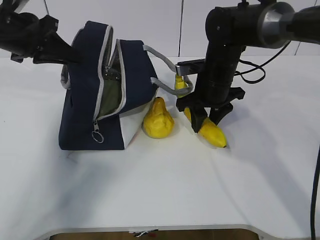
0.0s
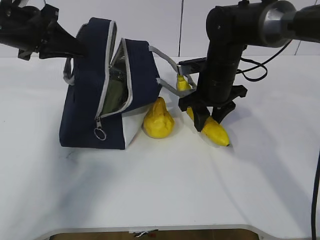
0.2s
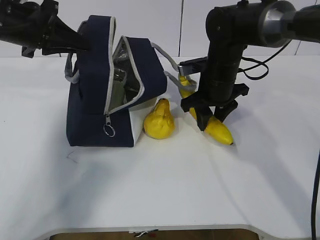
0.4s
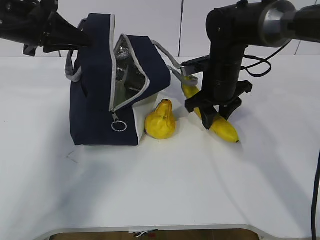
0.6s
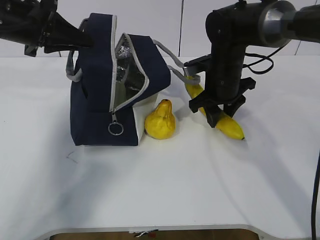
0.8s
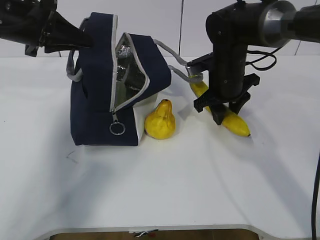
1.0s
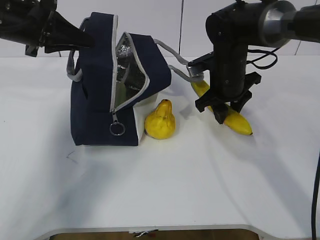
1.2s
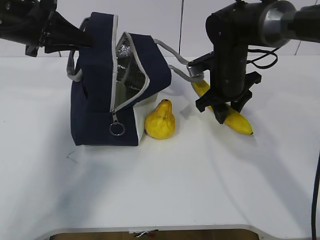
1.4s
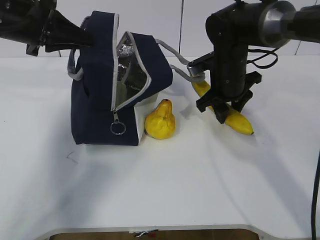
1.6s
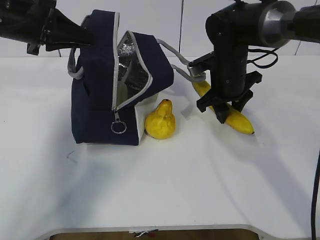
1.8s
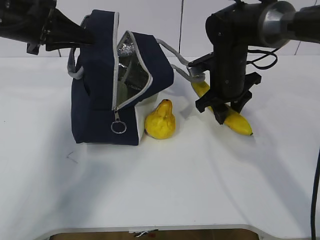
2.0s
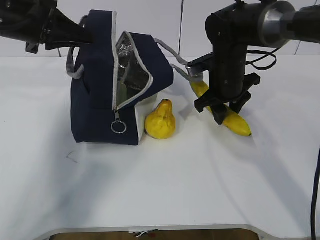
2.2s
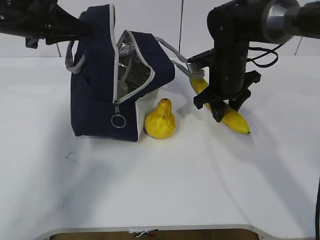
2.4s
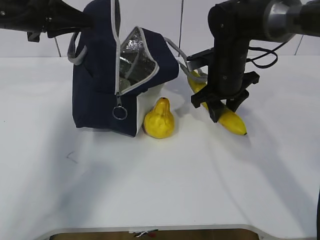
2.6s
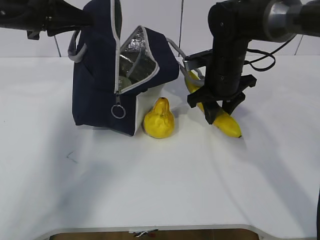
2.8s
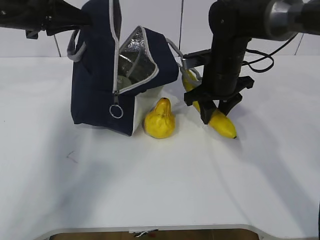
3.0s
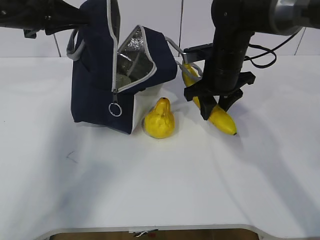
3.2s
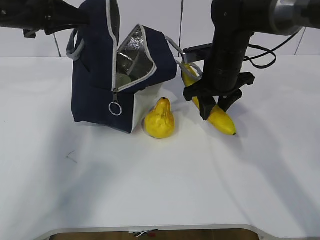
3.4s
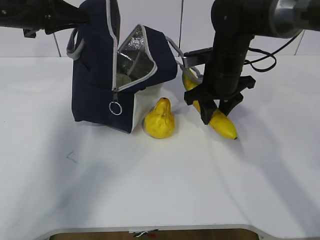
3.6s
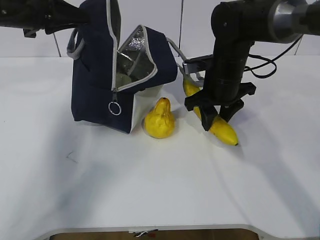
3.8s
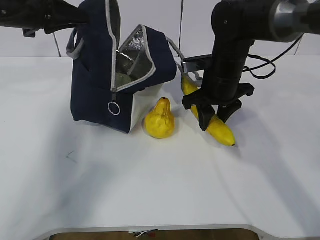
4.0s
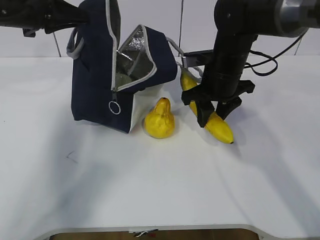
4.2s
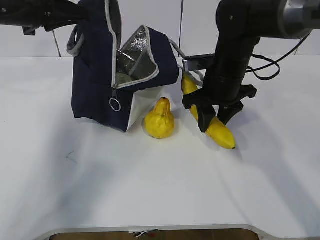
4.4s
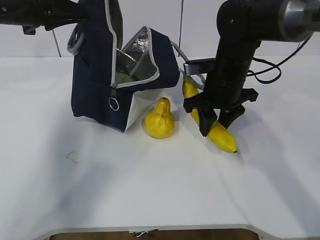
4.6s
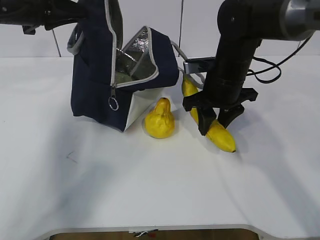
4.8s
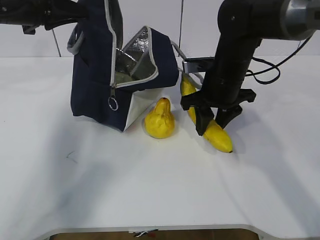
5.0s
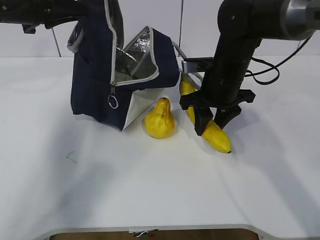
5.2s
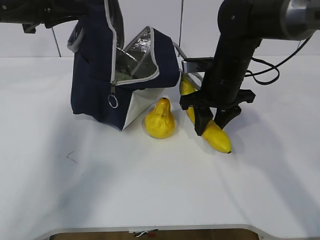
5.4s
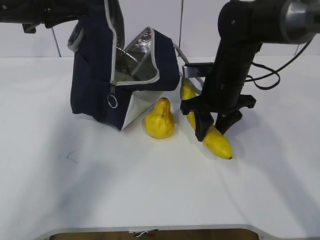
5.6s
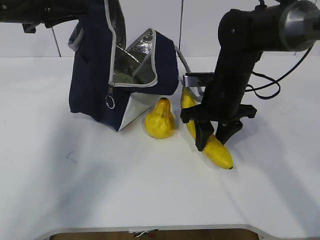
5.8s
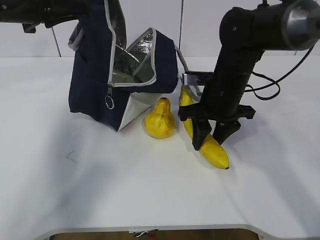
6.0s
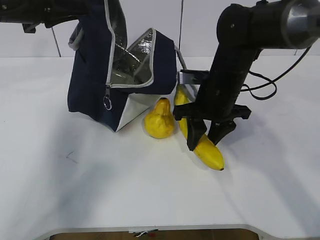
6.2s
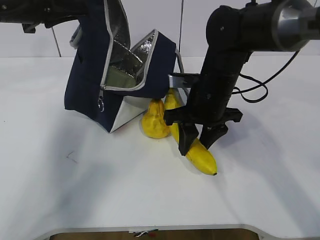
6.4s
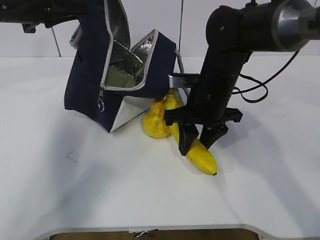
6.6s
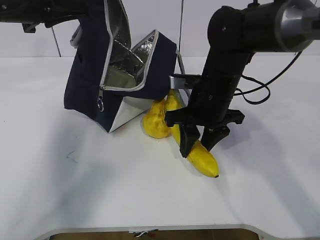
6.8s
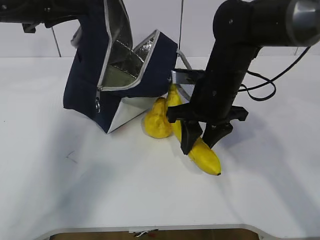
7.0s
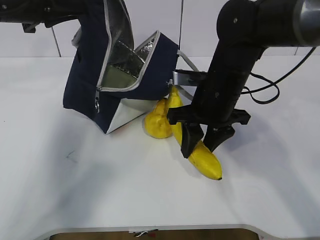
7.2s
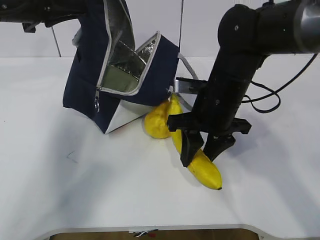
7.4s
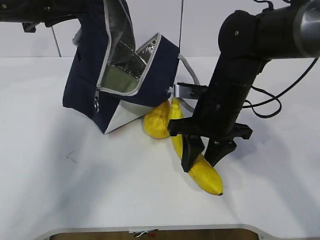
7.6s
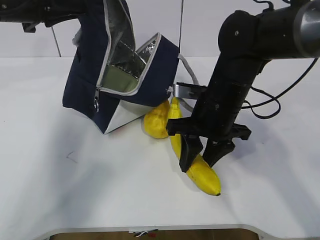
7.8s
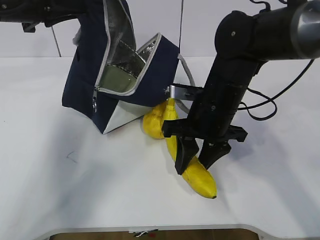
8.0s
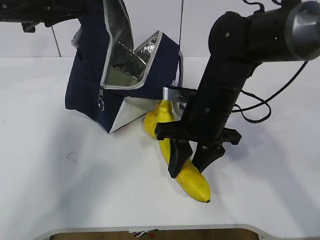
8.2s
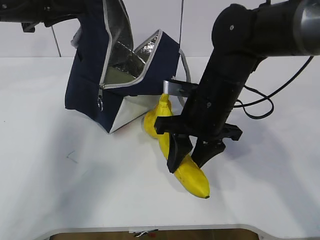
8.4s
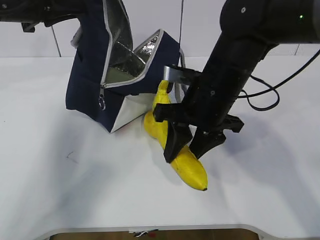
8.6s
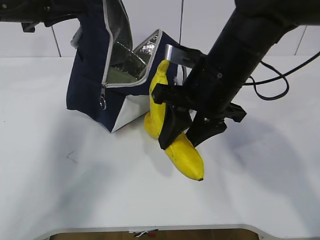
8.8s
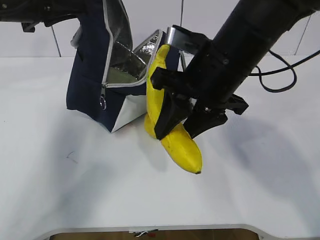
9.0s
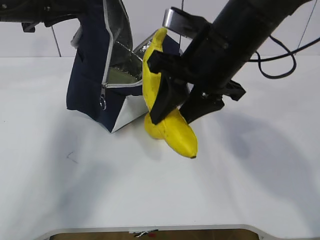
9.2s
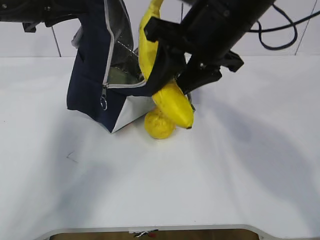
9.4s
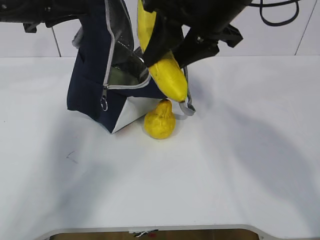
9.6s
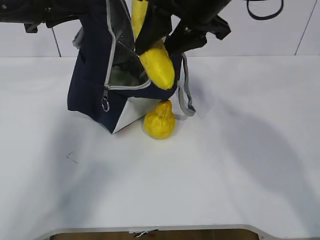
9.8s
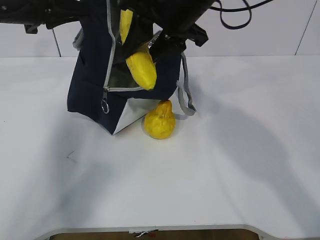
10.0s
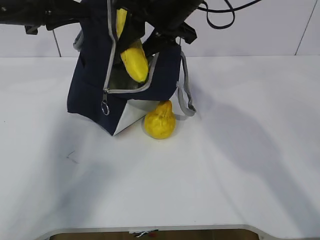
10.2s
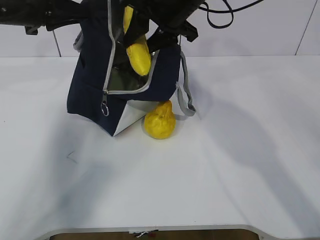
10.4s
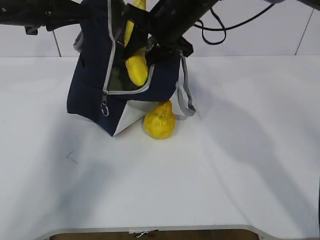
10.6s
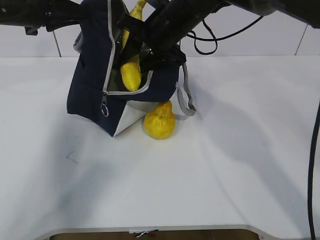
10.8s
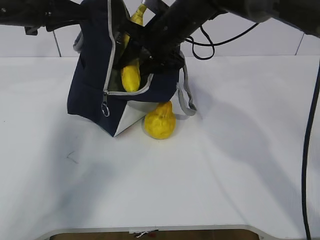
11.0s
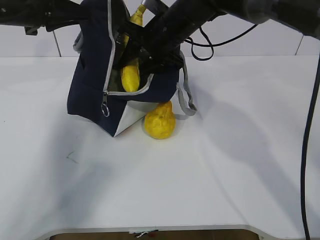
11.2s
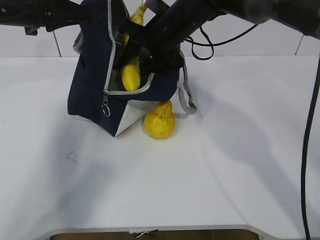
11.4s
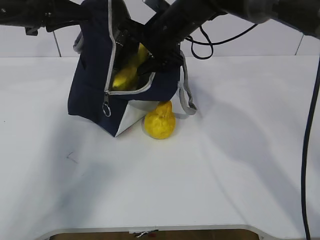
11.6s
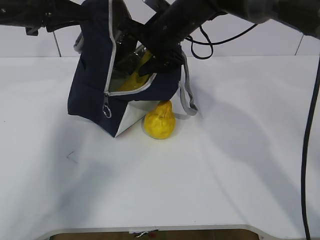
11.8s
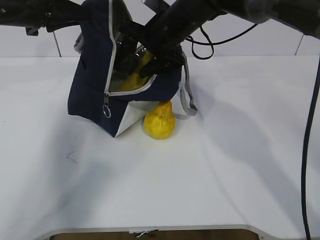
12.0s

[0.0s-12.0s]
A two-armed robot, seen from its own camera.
Step, 0.0s to 5.6s: Place it into the bag with your right hand.
Step, 5.8s to 10.4s: Grab the pear with your right hand.
0.0s to 3.0s: The grippers stay close to where they were, moving slightly.
3.0s to 6.0s: The grippers move only a little.
6.0s to 7.6s: The right gripper shifts by roughly 5 cm.
7.6s to 9.0s: The right gripper shifts some 10 cm upward.
9.0s to 10.4s: The right gripper moves forward, roughly 15 cm.
10.4s to 12.0s: The right gripper travels downward by about 5 cm, and opens.

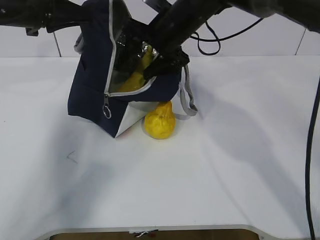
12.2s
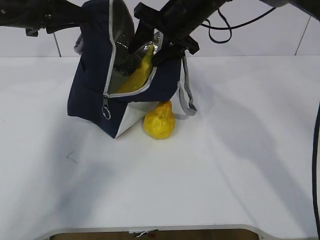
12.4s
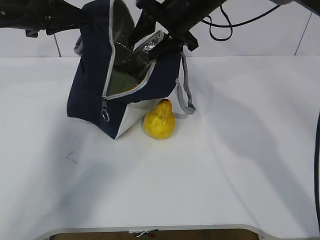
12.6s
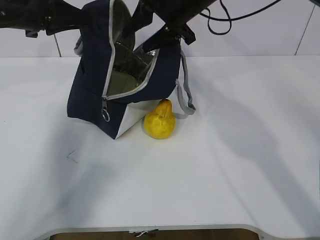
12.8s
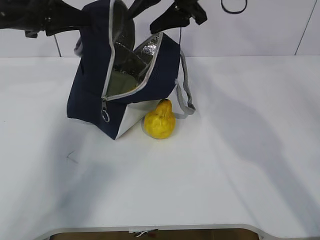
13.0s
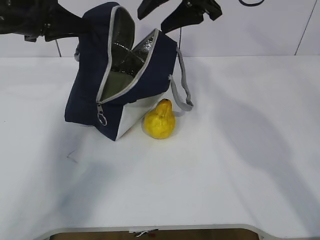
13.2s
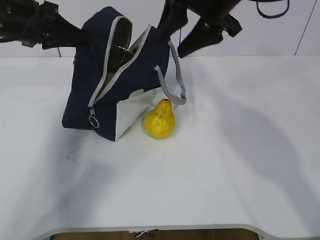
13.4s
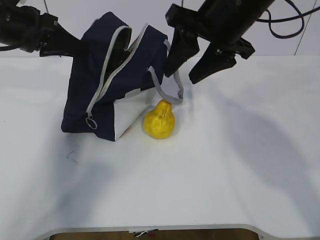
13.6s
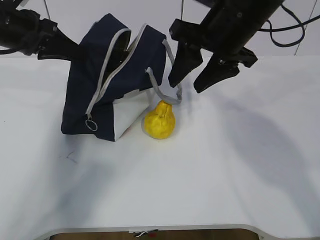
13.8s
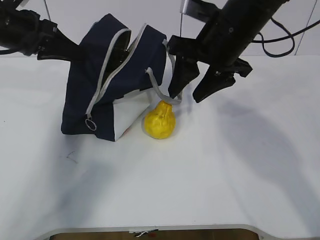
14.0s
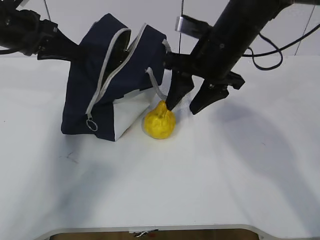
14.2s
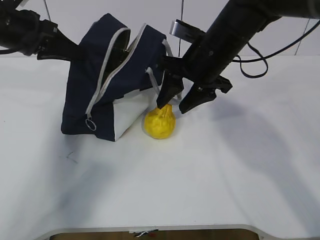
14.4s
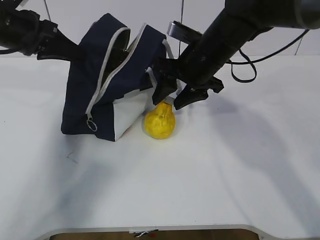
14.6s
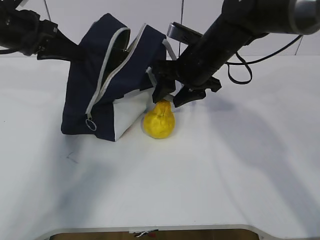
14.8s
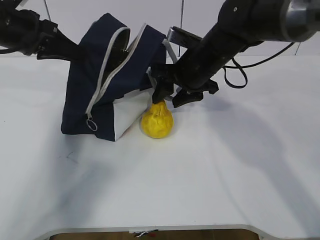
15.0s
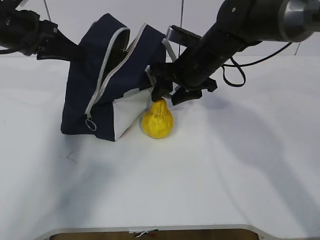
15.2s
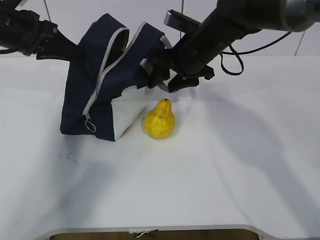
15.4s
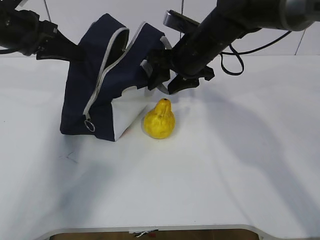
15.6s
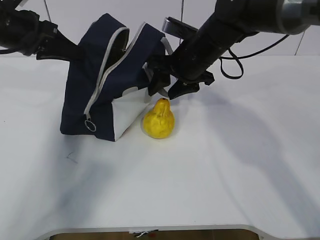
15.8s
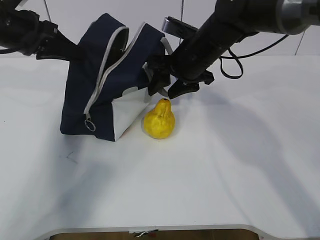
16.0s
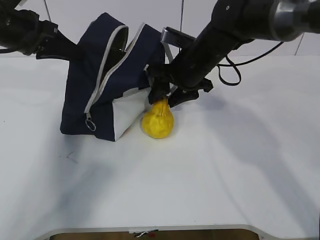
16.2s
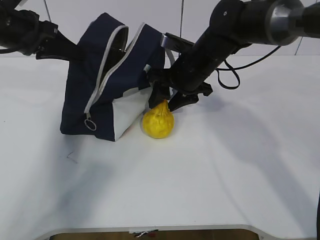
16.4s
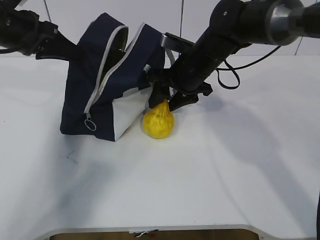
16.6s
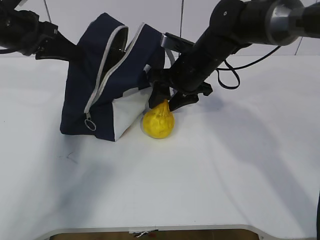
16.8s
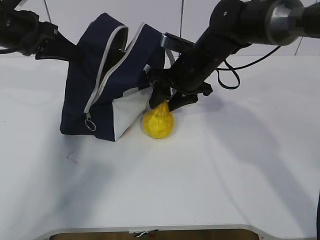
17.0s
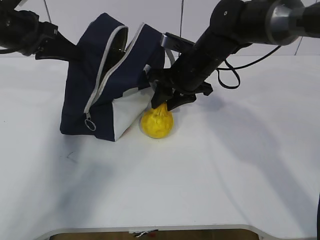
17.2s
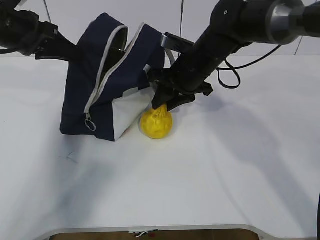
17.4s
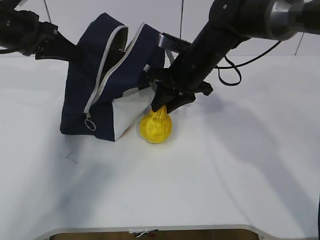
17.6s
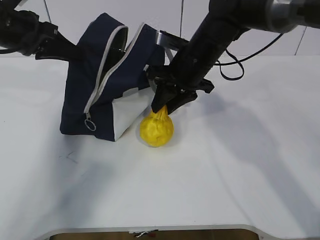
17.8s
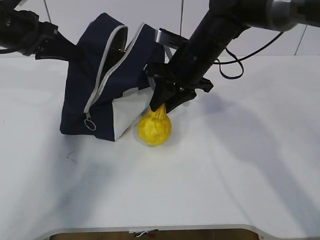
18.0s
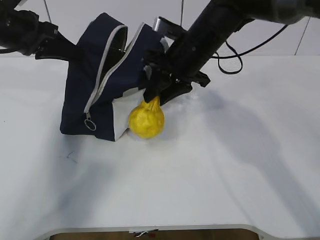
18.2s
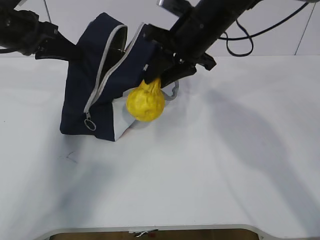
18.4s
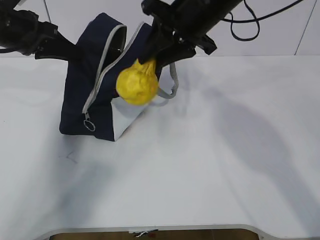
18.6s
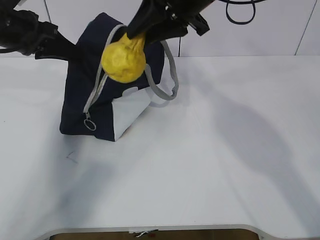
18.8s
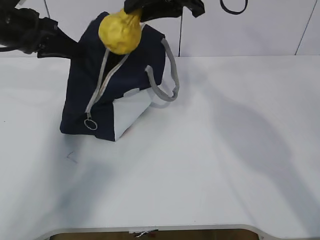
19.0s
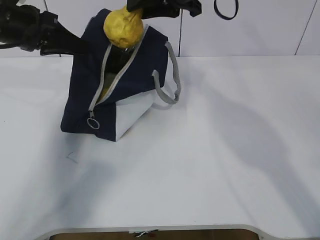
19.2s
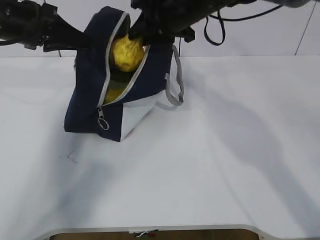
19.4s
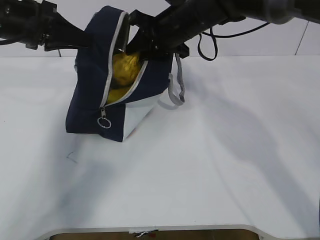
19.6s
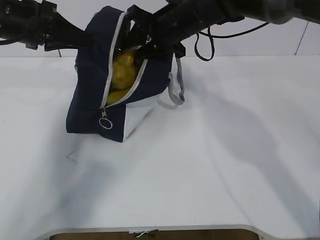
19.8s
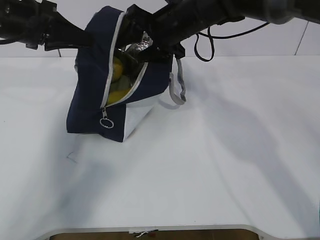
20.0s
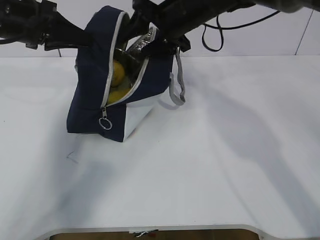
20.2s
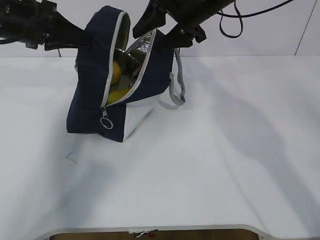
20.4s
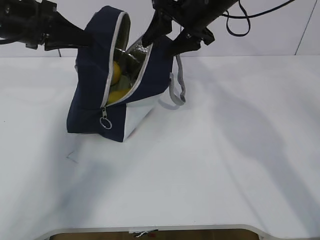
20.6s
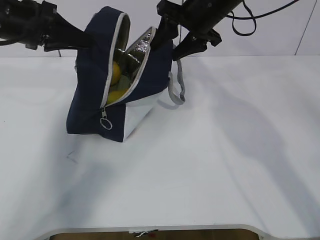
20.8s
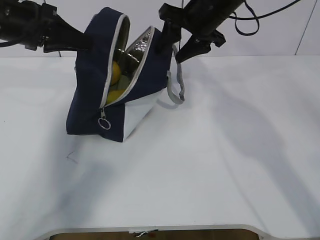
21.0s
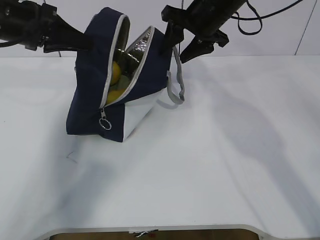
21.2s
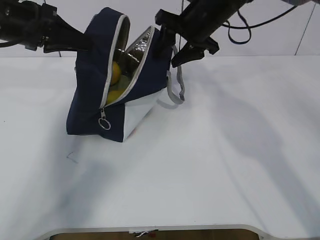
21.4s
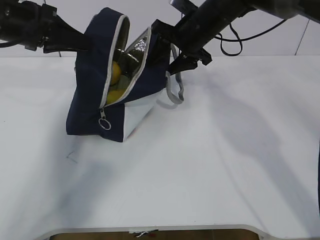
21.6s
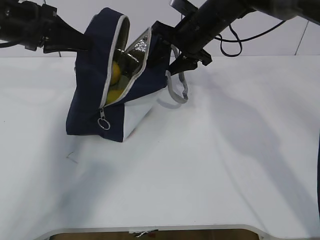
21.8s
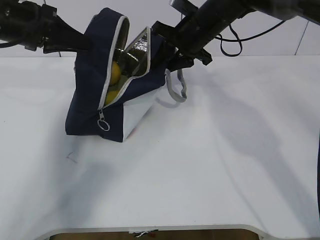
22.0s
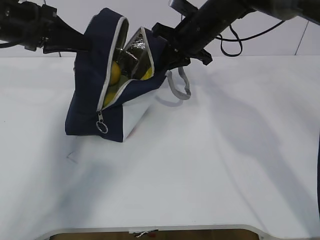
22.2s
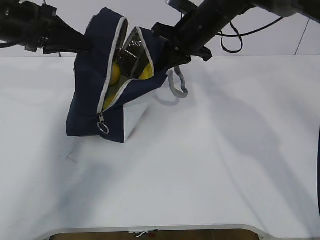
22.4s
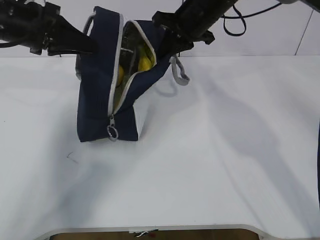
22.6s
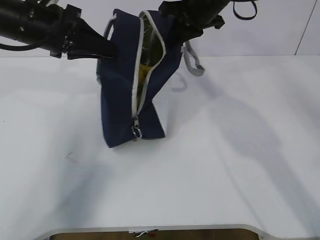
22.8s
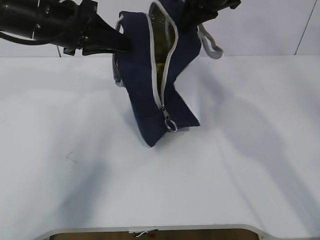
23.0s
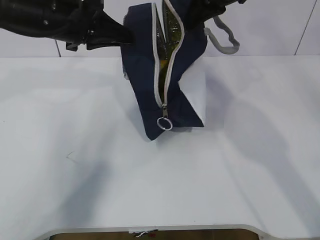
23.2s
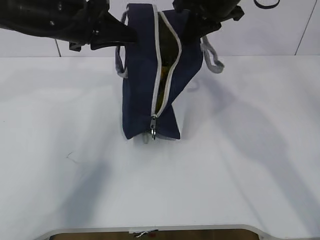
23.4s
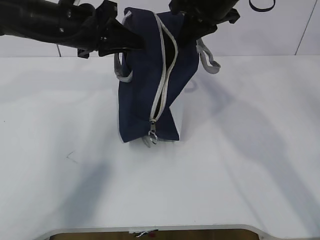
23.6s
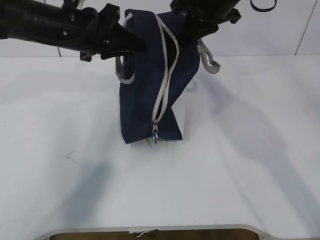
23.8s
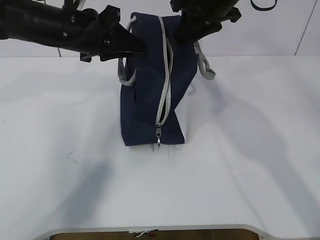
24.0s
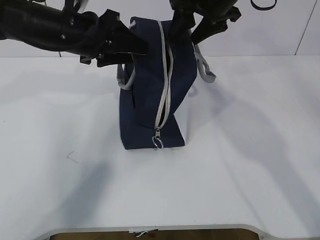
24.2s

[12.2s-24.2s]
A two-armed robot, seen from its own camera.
Step, 12.8s to 14.6s: Grab the lunch bag with your right hand.
Step, 14.8s to 16.0s: Move the lunch bag to the right.
12.2s to 13.8s: The right gripper travels backward, to the right and upward by approximately 15 cm.
13.8s to 15.2s: The right gripper heads downward and forward, covering roughly 15 cm.
15.2s to 18.2s: The grippers stay close to where they were, moving slightly.
18.2s to 19.8s: The right gripper moves roughly 10 cm upward and comes back.
19.8s to 21.2s: The right gripper heads to the right, covering some 5 cm.
21.2s to 22.6s: The right gripper closes.
22.6s to 24.2s: The left gripper heads to the right, covering roughly 10 cm, and opens; the right gripper shifts by approximately 5 cm, and opens its fingers.
